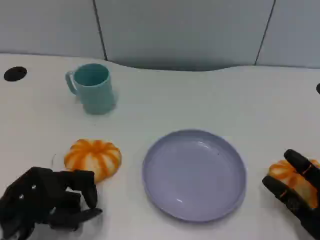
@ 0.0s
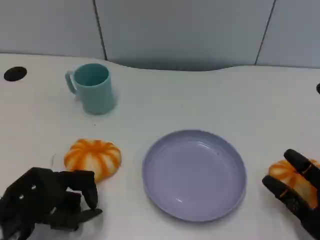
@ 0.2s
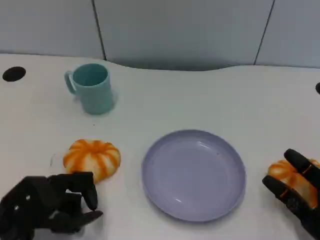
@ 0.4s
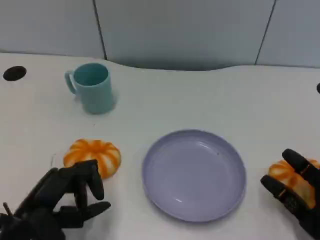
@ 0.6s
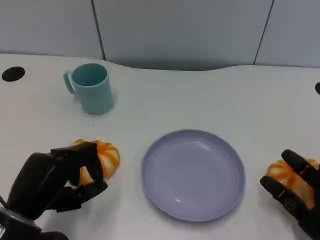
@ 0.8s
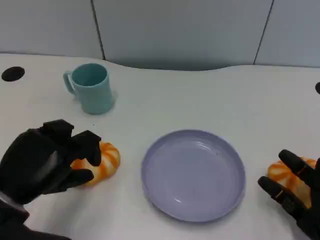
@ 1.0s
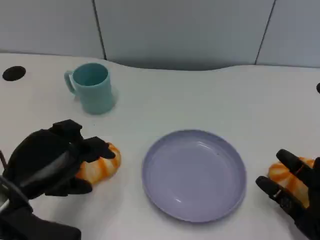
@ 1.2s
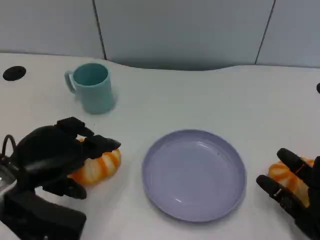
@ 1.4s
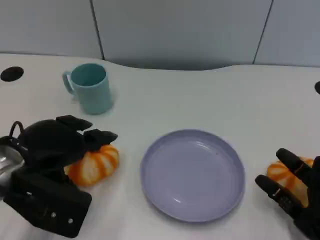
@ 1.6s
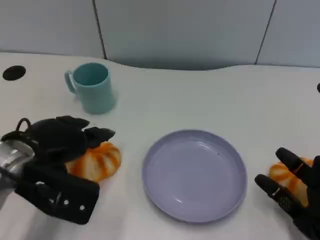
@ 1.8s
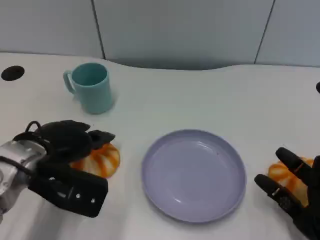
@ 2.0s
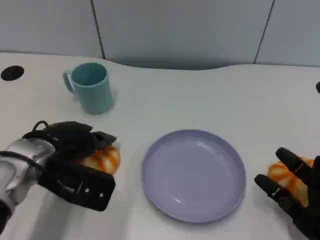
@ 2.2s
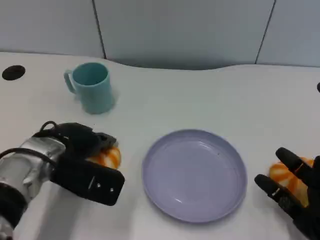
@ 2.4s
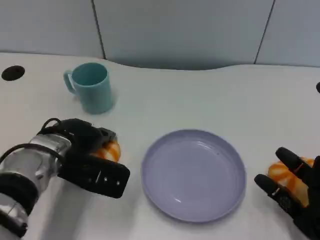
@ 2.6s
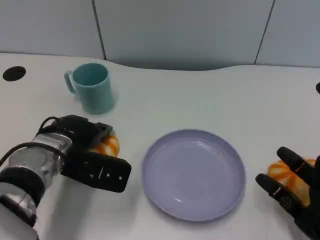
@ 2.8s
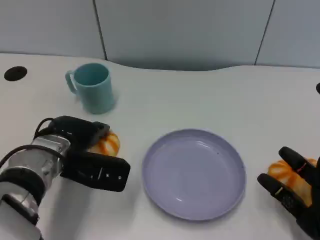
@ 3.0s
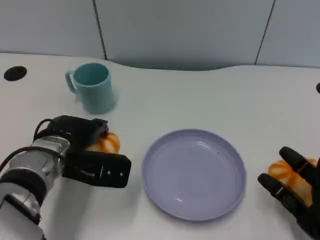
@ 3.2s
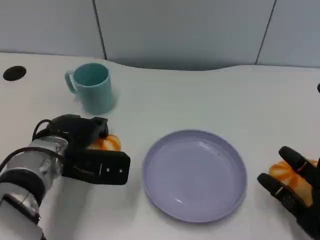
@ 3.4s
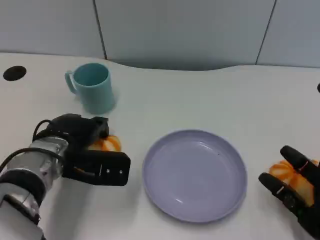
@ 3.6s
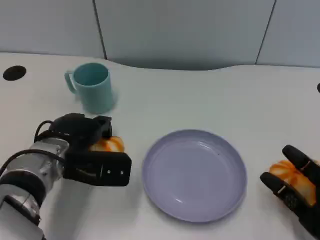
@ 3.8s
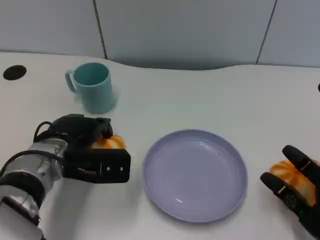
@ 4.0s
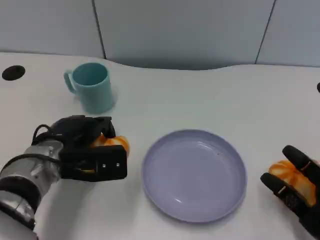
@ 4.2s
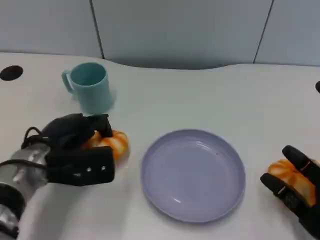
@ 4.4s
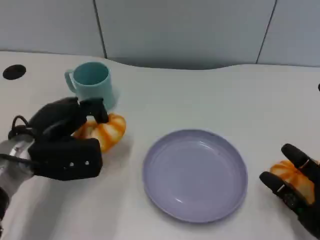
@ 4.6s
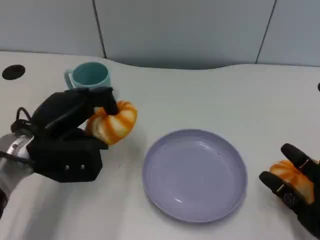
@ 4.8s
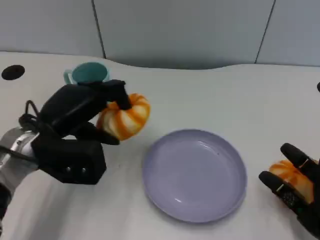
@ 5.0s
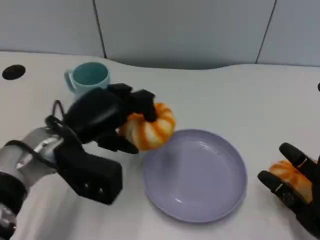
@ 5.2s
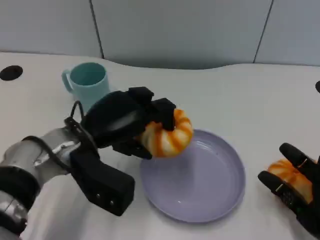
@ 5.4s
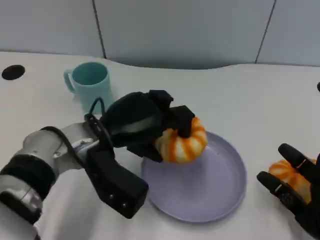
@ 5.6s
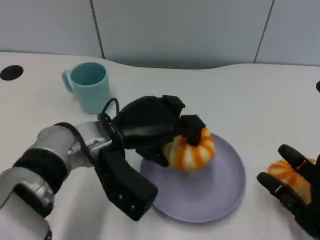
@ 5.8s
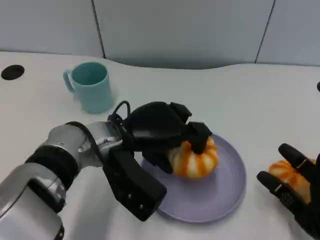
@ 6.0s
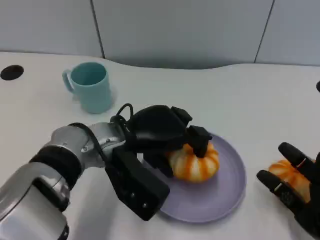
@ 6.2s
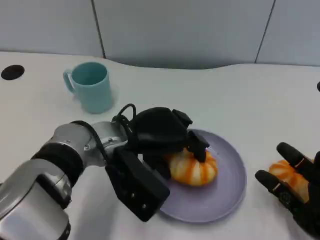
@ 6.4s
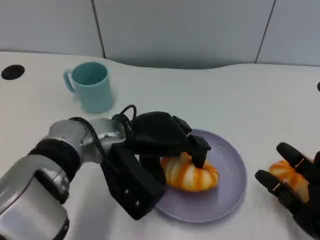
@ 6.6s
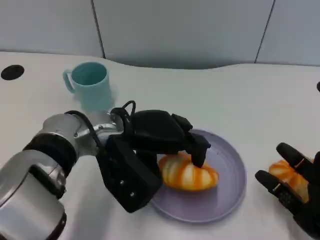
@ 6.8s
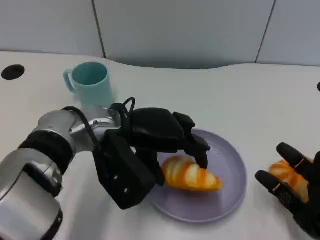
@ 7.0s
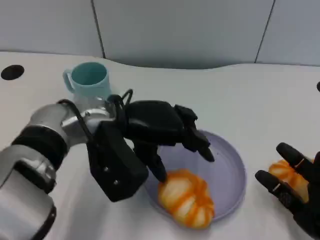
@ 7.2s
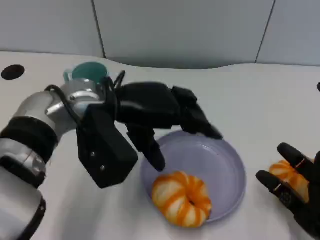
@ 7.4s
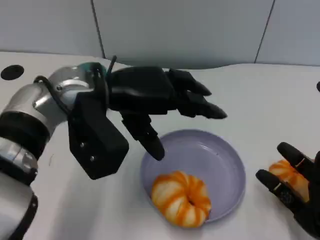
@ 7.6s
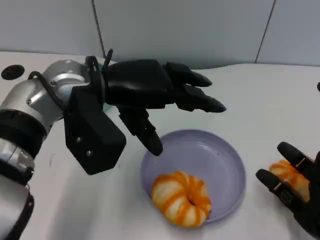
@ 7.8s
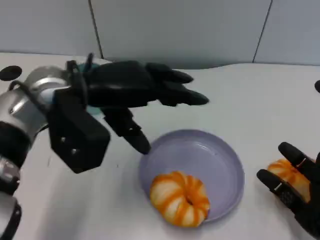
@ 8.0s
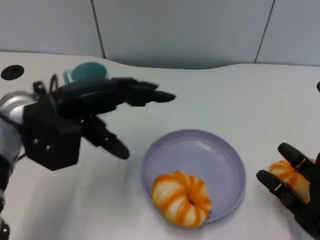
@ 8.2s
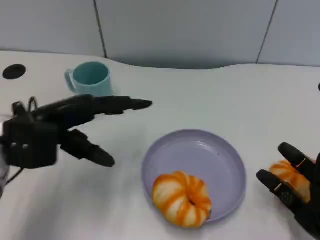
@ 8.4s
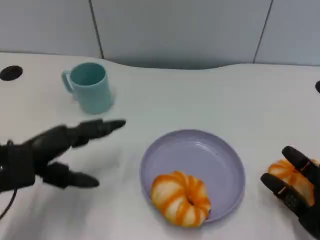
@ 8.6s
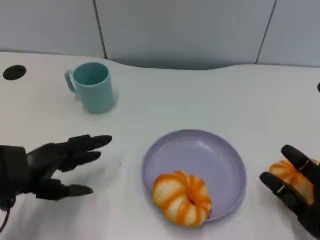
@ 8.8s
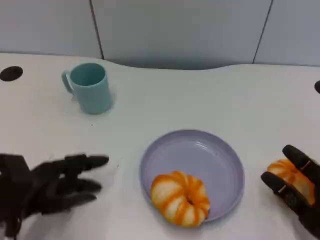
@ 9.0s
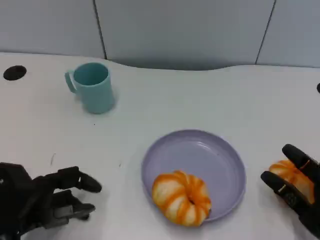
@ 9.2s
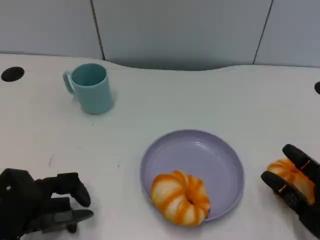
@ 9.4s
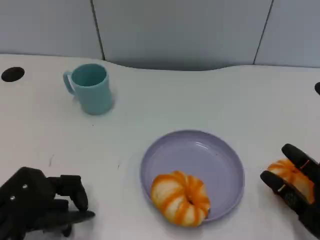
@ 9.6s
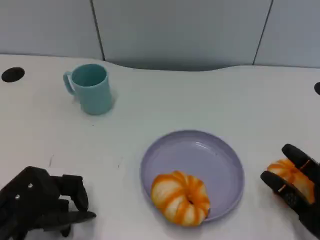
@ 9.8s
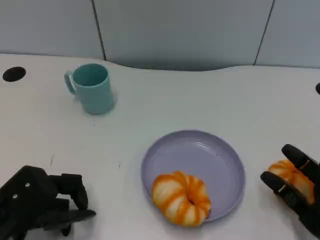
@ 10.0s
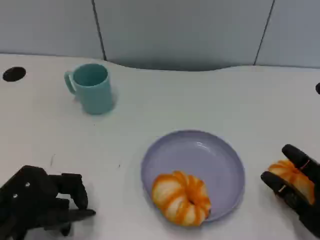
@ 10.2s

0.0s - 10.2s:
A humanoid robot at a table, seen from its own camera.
Task of the whole recording: Grasp the bread from the table and place it into the plate.
0.0s - 1.4s: The left hand goes approximately 10 cm upward.
1.4s - 3.0s: The left hand travels forward, downward and to the right by roughly 10 cm.
4.4s - 5.8s: The left hand goes approximately 10 cm to the right.
7.2s - 8.8s: The left hand goes approximately 20 cm to the left, downward and backward.

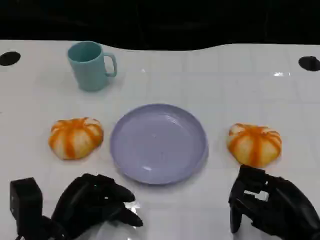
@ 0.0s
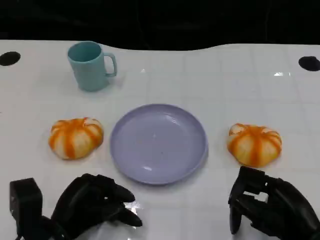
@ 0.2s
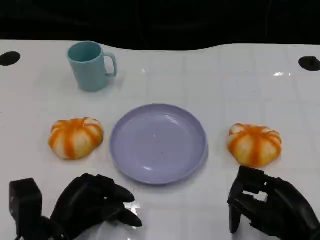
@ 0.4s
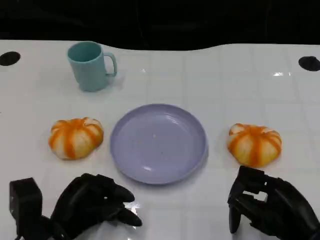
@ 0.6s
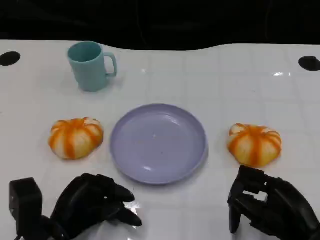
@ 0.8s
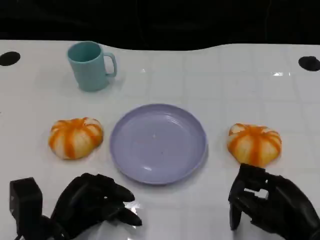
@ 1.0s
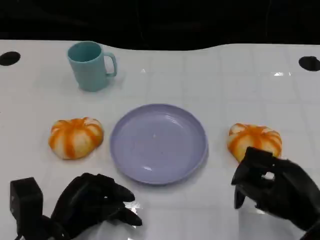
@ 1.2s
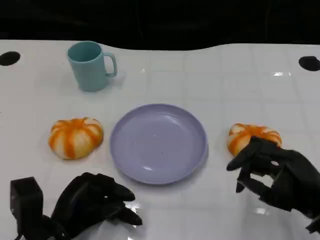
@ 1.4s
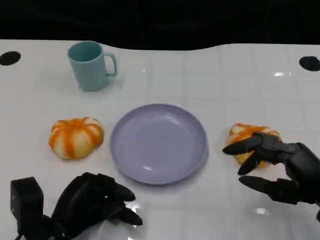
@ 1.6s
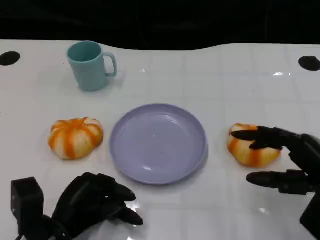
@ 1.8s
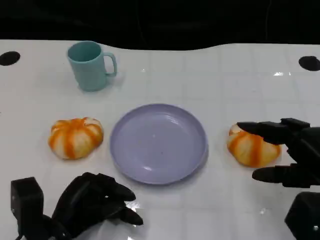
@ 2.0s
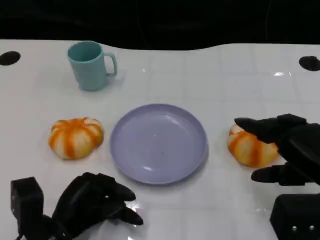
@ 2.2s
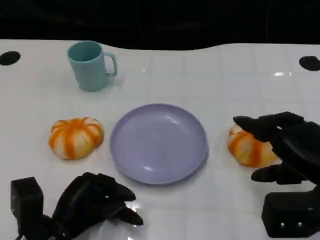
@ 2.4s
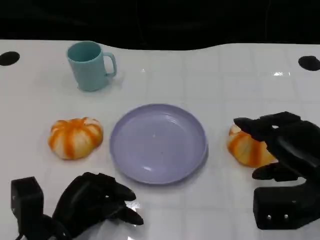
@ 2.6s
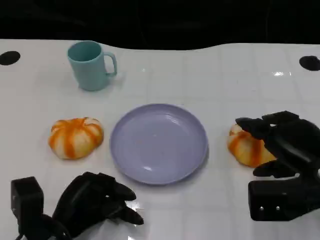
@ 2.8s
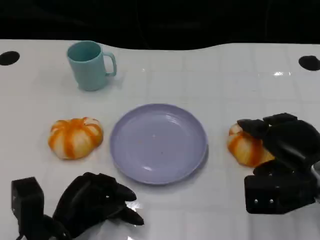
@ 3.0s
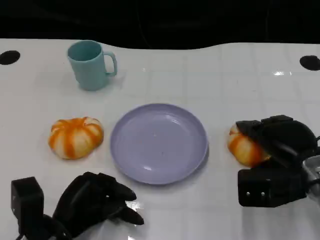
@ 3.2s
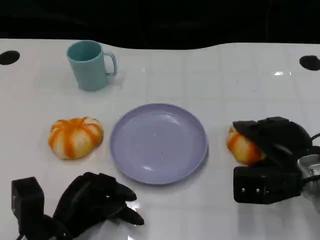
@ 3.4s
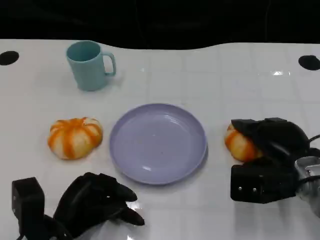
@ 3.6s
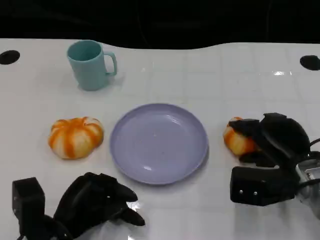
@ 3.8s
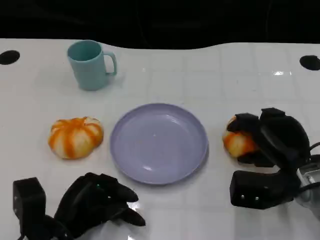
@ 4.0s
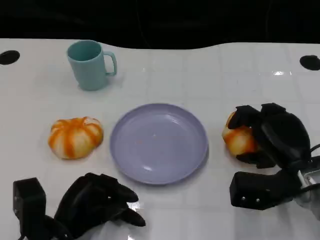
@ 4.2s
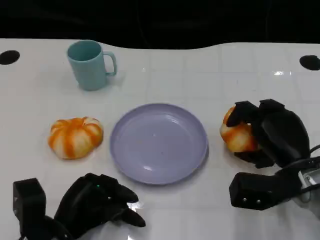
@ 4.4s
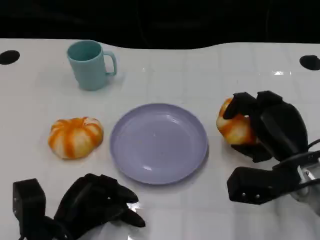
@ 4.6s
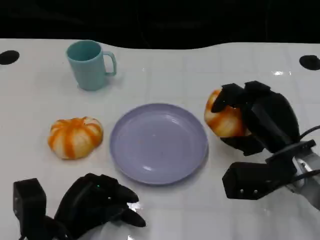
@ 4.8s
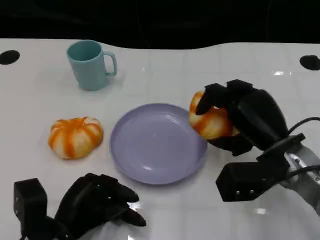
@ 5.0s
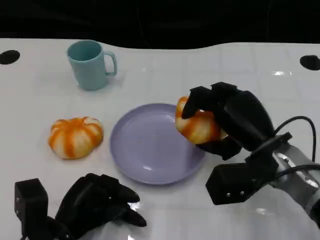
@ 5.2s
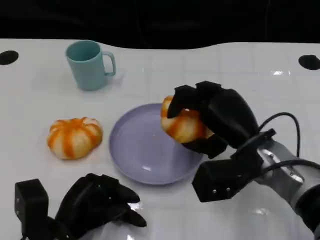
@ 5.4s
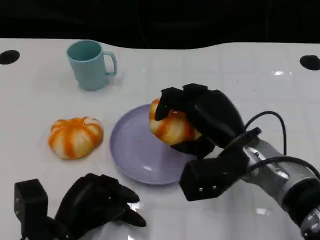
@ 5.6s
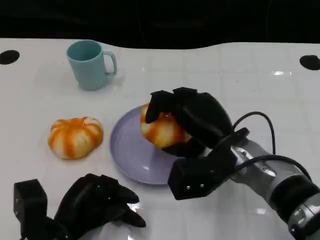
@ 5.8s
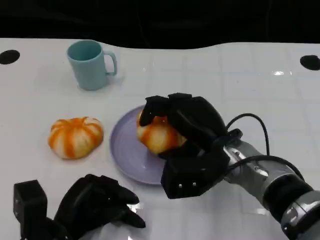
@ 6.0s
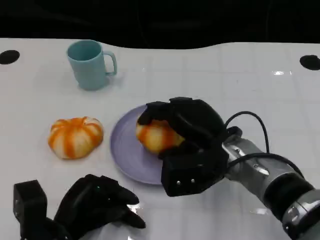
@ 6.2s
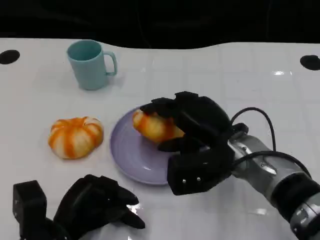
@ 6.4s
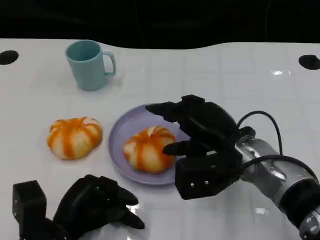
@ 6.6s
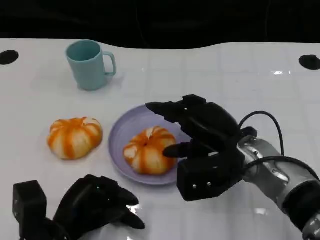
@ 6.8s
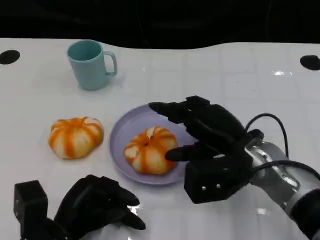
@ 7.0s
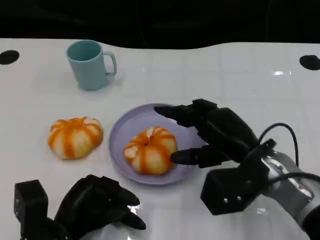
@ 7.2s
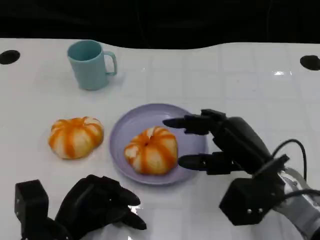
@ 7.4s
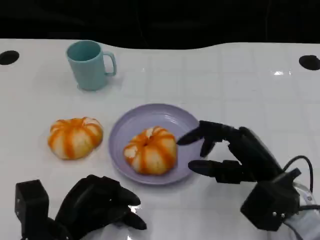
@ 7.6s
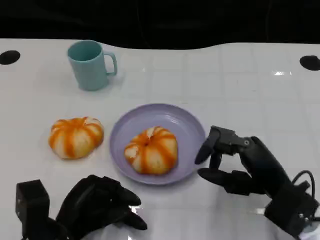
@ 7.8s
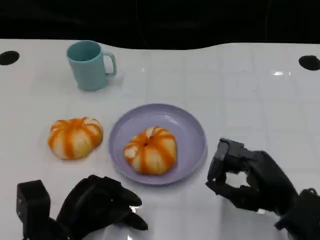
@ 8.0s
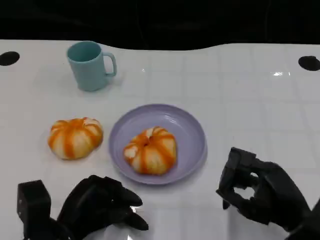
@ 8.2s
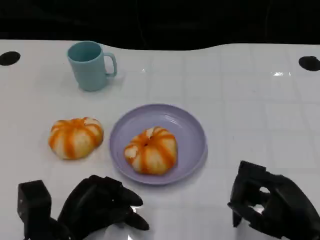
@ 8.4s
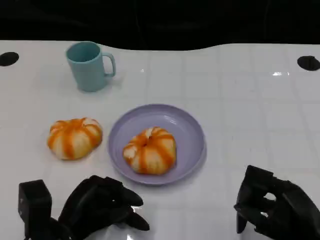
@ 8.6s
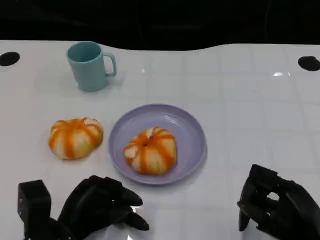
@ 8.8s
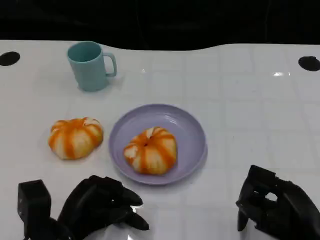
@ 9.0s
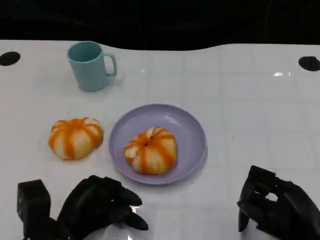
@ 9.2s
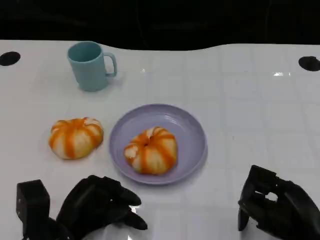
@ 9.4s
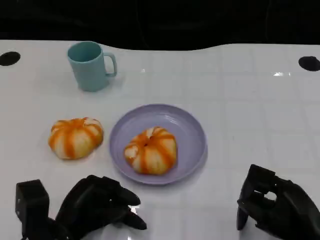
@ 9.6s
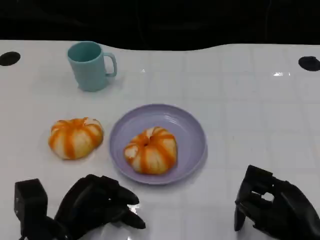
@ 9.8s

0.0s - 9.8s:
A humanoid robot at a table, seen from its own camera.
Task of the whole recording: Grasp the bread from the table and place it into the plate.
1.4s - 2.8s: The right hand moves forward, about 5 cm.
2.8s - 4.2s: The right hand changes place by some 5 cm.
4.2s - 5.6s: The right hand travels to the left by roughly 10 cm.
5.6s - 7.0s: There are only small adjustments of the hands.
7.0s - 8.4s: The right hand shifts about 15 cm backward and to the right.
8.4s - 9.8s: The hands move only a little.

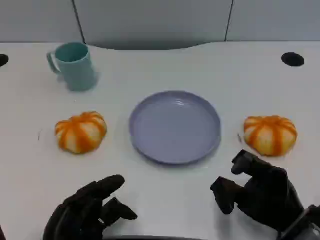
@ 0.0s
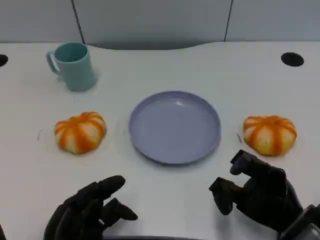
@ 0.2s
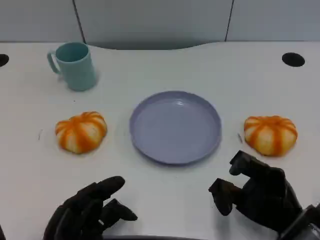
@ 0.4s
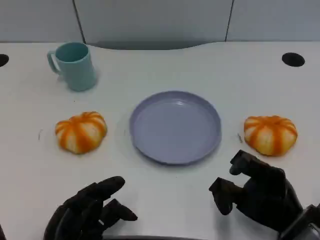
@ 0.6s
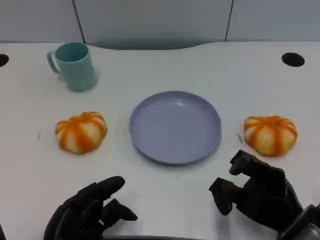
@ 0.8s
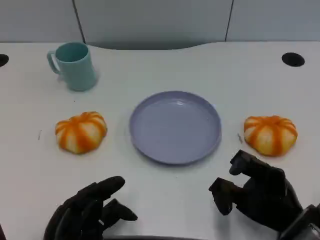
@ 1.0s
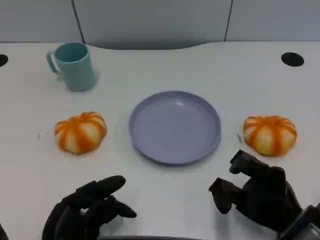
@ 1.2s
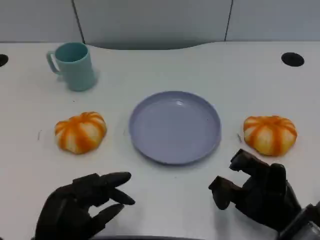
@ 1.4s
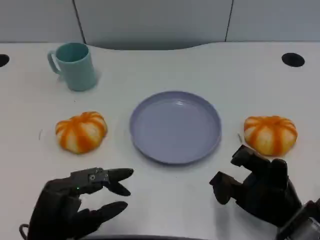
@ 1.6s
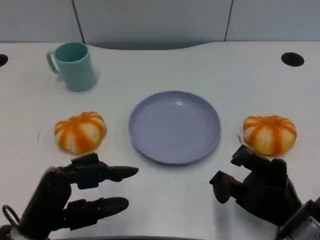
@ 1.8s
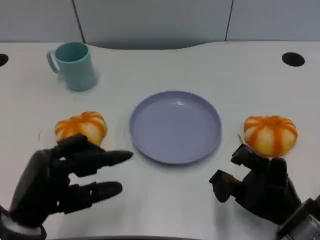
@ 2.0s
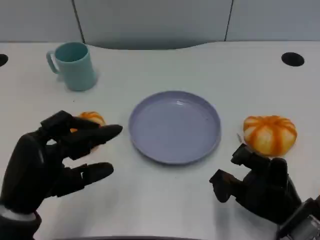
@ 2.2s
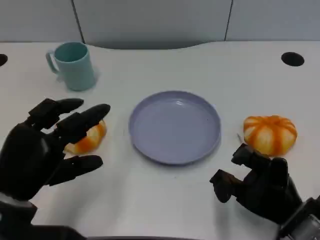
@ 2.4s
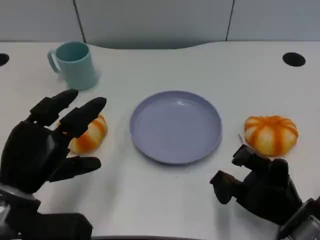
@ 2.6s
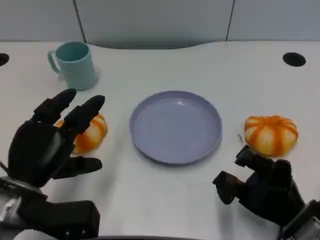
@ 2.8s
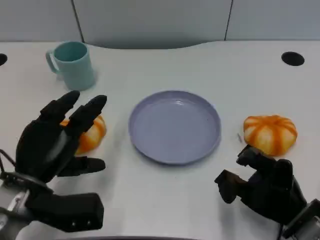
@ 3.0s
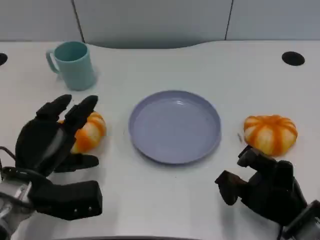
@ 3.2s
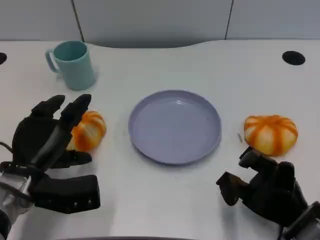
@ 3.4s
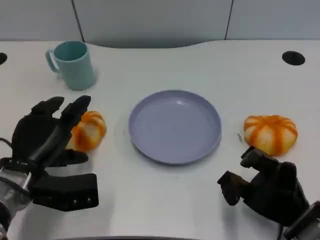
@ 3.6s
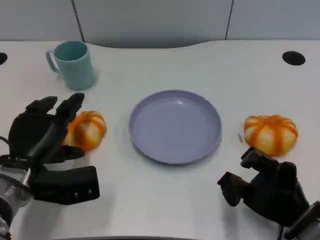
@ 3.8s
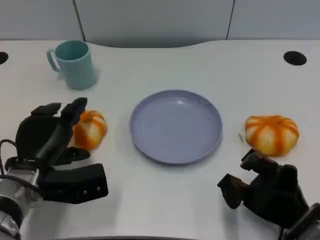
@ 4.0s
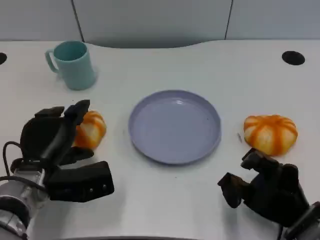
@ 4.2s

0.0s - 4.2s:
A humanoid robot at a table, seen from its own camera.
Task of the whole recording: Grasp the bread from the table and place it into the plate.
1.4s - 2.8s: The left hand travels forward by roughly 10 cm.
2.8s - 4.2s: The left hand moves approximately 5 cm.
